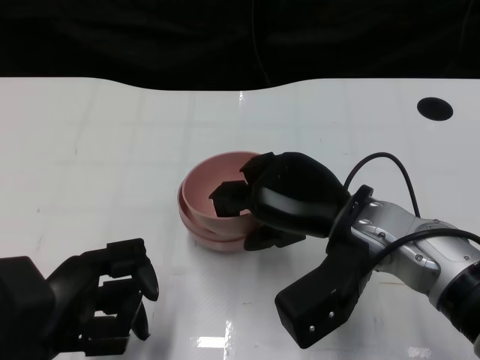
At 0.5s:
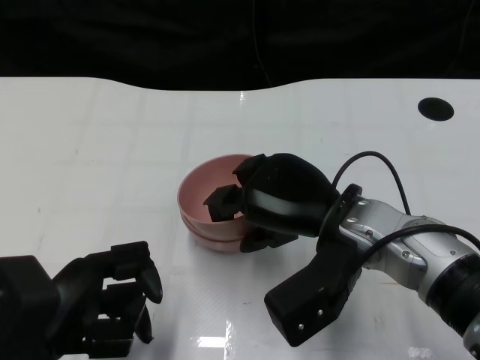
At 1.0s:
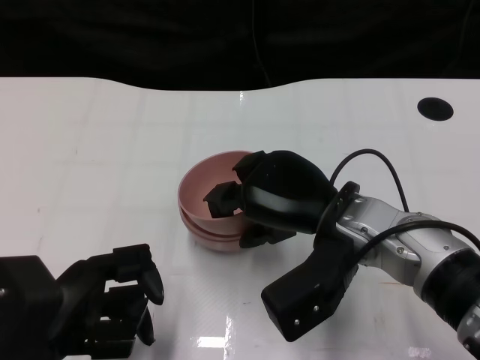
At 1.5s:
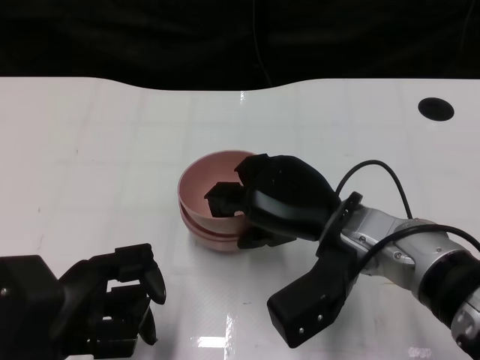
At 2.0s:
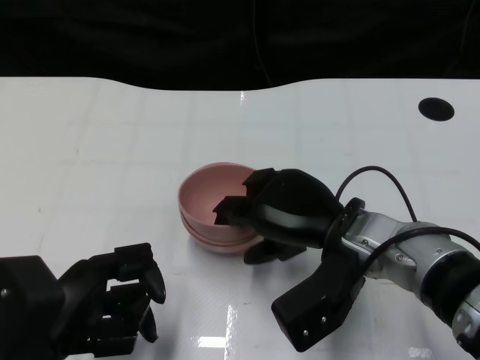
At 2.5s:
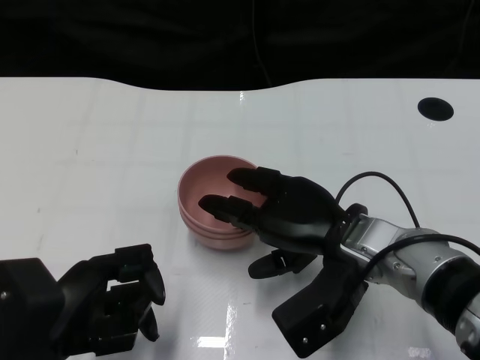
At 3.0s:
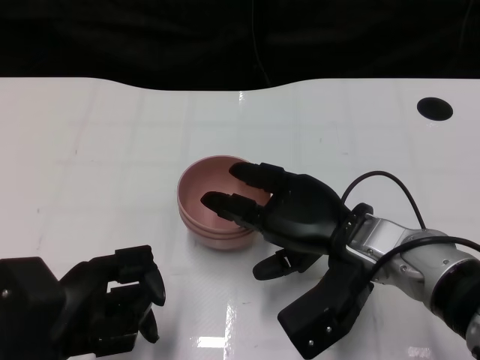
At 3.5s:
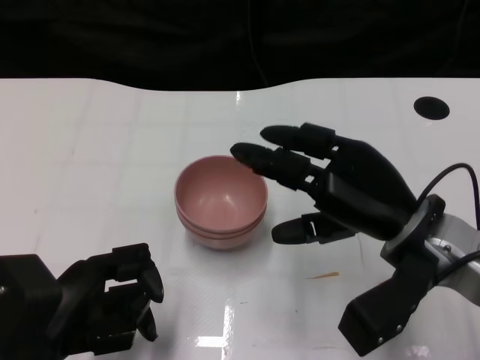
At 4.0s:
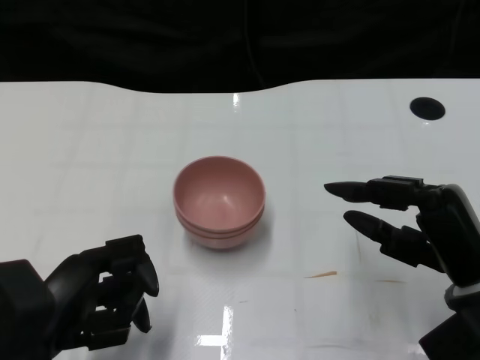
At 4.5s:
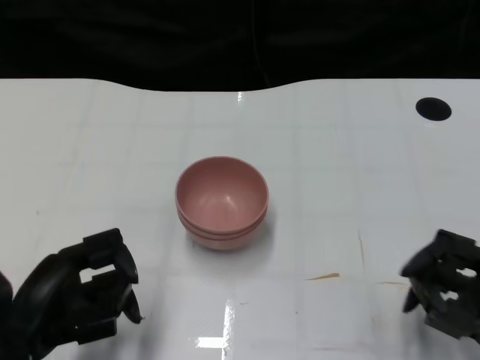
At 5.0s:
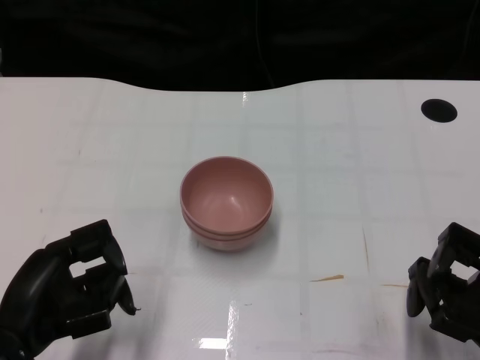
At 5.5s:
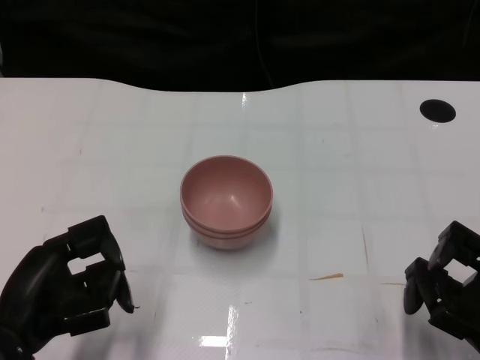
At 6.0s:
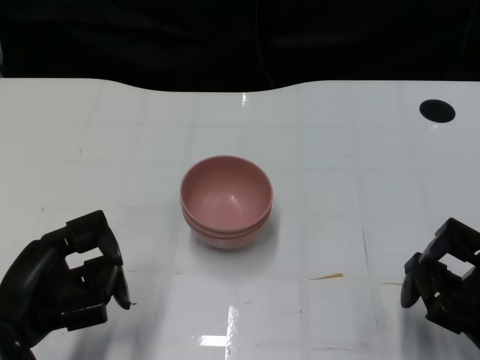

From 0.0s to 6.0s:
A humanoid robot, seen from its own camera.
Task of the whole recording: Pick up the bowl on one side of the table and place it on top of the middle bowl, then pick up the bowl on the other side of the table and place it on top of the middle bowls.
Step, from 0.0s to 2.5s: Place the bowl on the right onto the bowl in the middle with right gripper.
From 0.0s to 2.0s: The hands move only a little.
From 2.0s to 4.0s: The right hand shifts about 15 cm to the right and backward.
From 4.0s to 6.0s: The right hand moves roughly 10 cm.

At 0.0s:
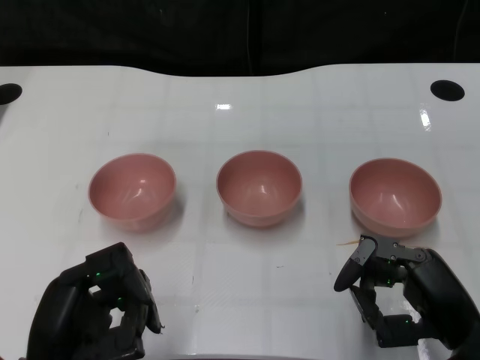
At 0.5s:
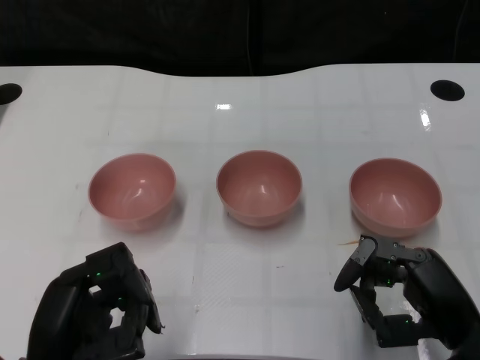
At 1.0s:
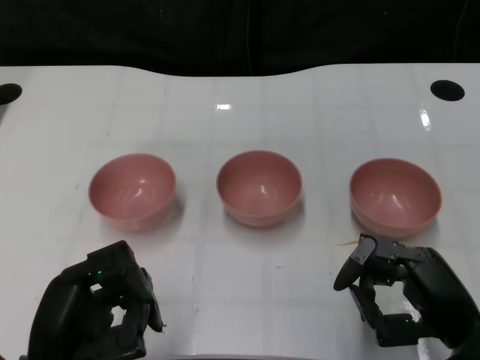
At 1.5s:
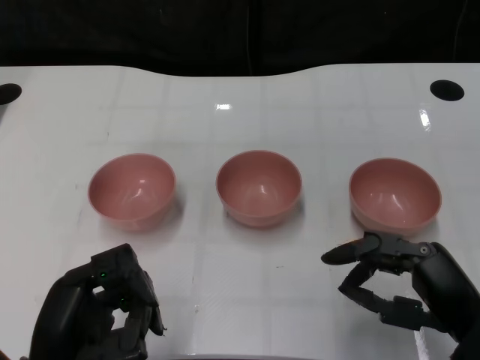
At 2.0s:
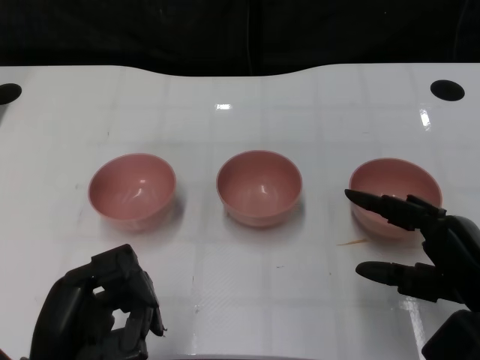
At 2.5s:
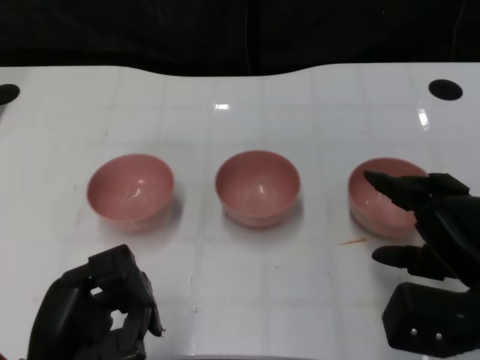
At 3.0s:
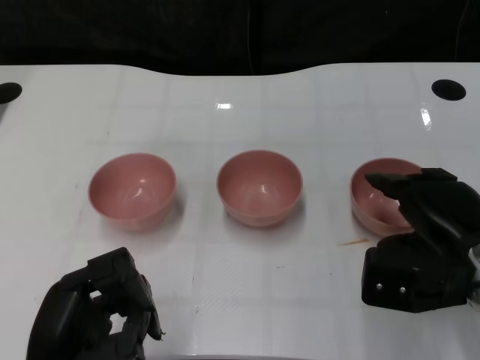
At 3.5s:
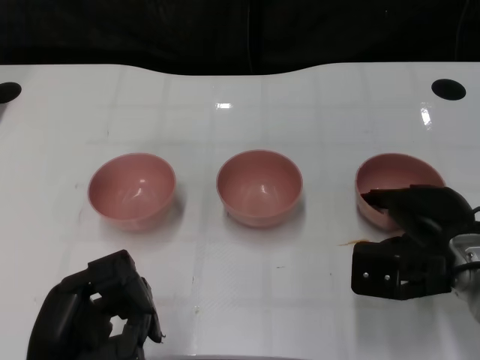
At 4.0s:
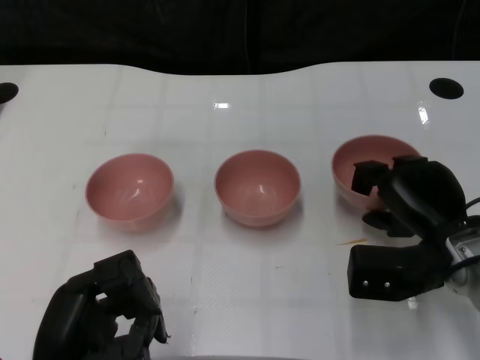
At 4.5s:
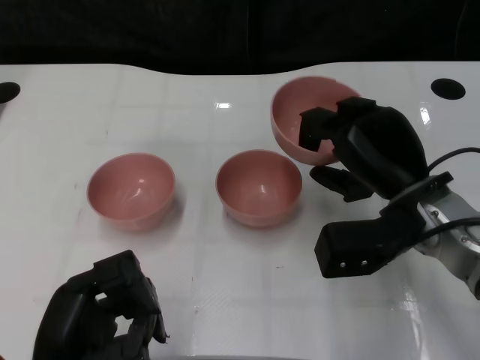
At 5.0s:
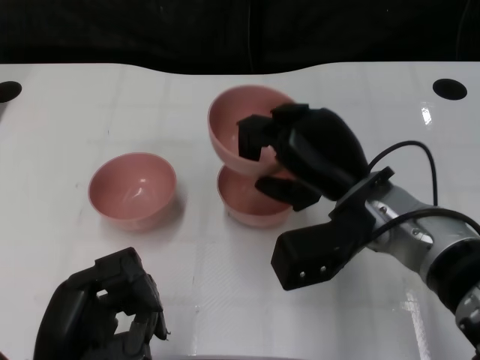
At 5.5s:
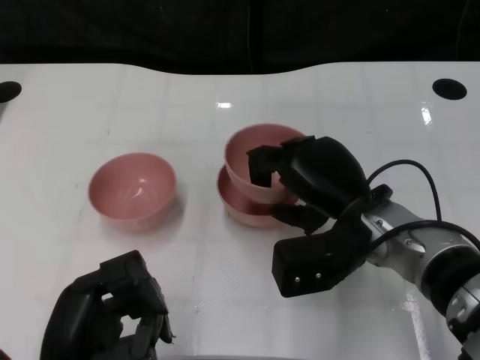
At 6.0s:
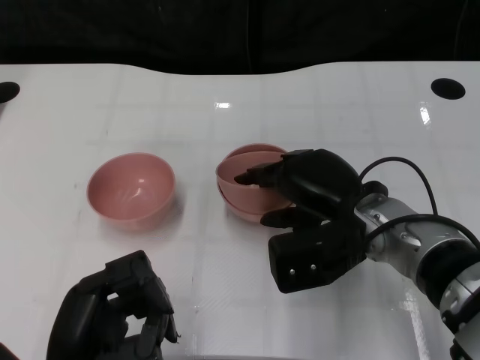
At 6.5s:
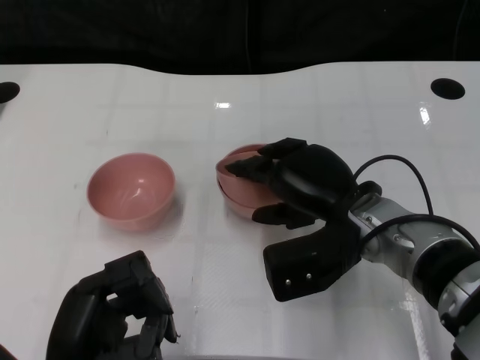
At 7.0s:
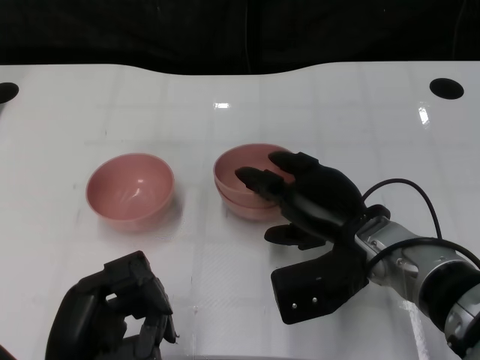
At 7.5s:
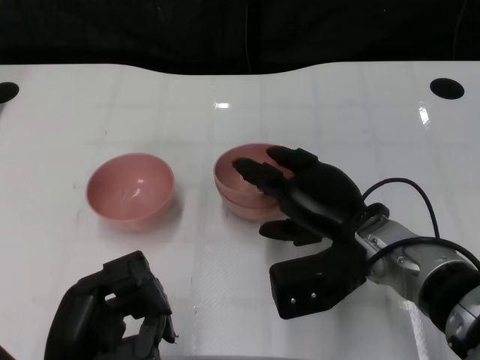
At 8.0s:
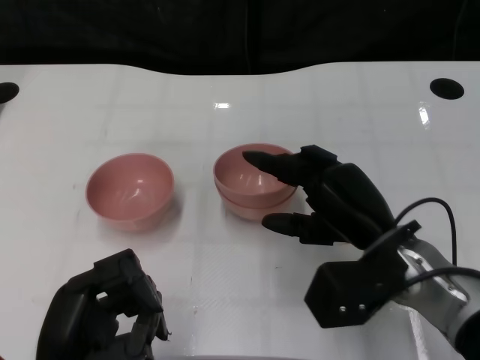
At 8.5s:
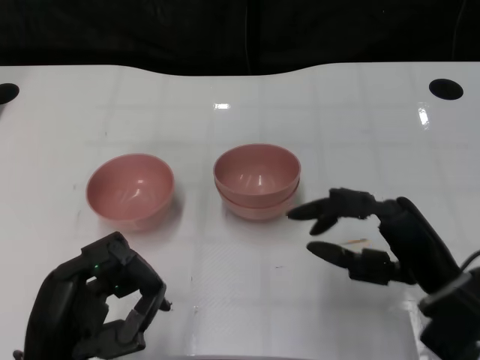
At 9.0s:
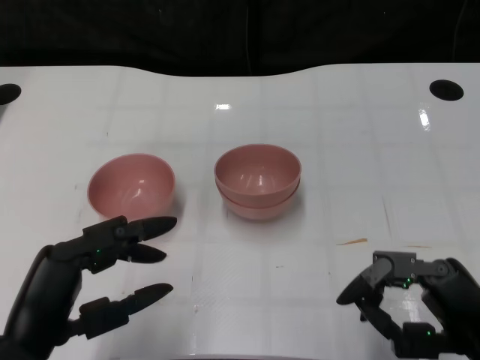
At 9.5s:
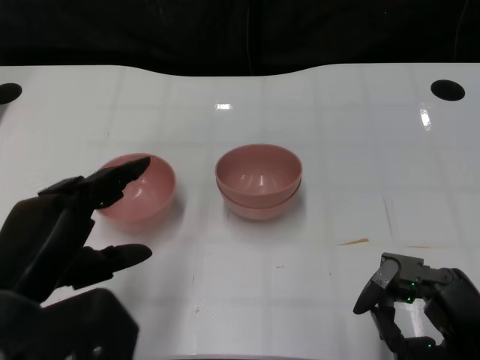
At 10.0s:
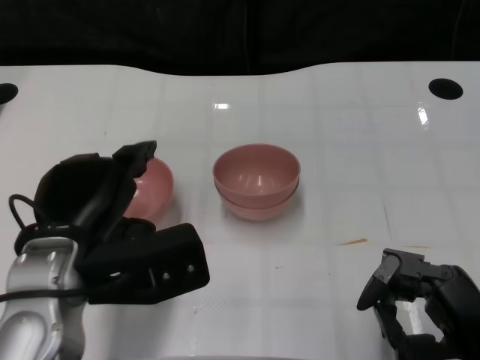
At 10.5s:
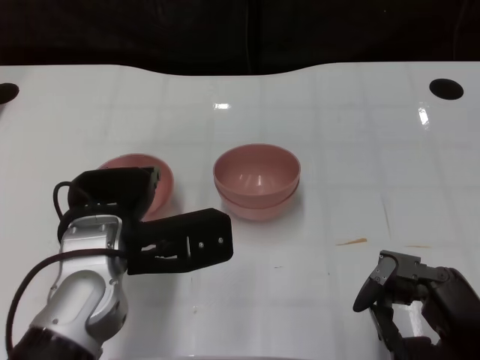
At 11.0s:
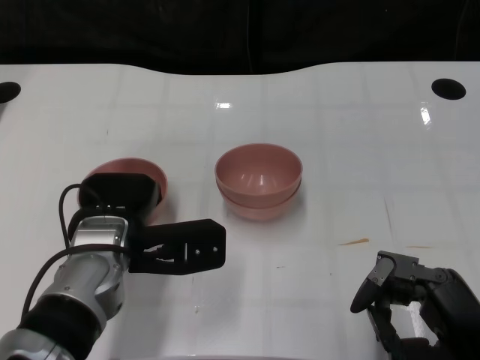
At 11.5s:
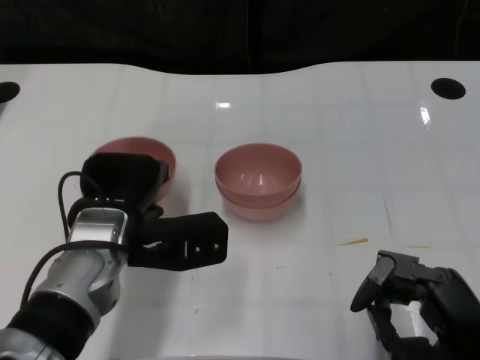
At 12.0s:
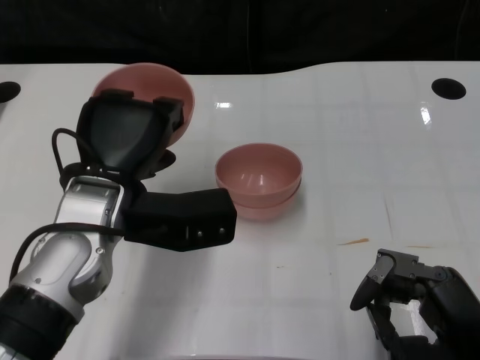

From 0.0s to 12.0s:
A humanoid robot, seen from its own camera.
Task of the whole recording: Pick up the bowl on one side of the table and place it on top of the middle bowl, then pick up the bowl on the other side of the table and place it on top of the middle bowls.
Step, from 1.5s to 3.5s: Grasp the bowl on the right with the right gripper.
Step, from 4.5s to 8.0s: Place the bowl on the right onto the bowl in the middle with right gripper.
Step, from 8.5s to 11.0s: Grasp the bowl on the left with the left gripper.
From 2.0s to 4.0s: The right hand is displaced forward by some 10 cm.
From 4.0s to 6.0s: The right hand heads to the left, covering about 10 cm.
From 8.0s to 10.0s: The left hand shifts about 10 cm forward and upward. The right hand moves backward and to the right, about 15 cm.
From 10.0s to 12.0s: The left hand shifts approximately 5 cm forward.

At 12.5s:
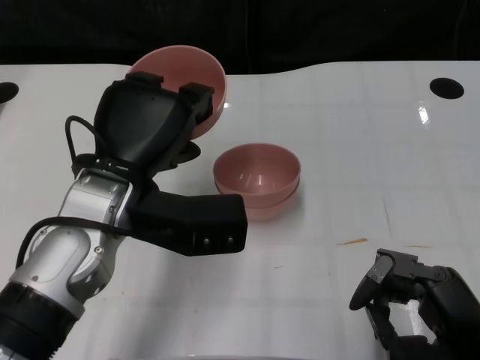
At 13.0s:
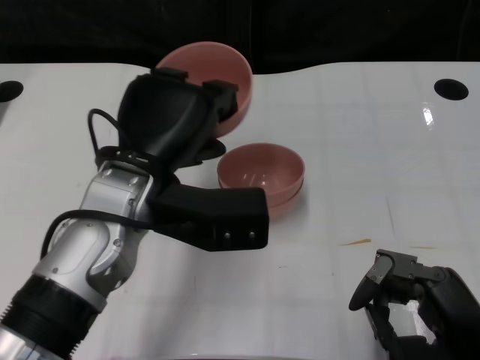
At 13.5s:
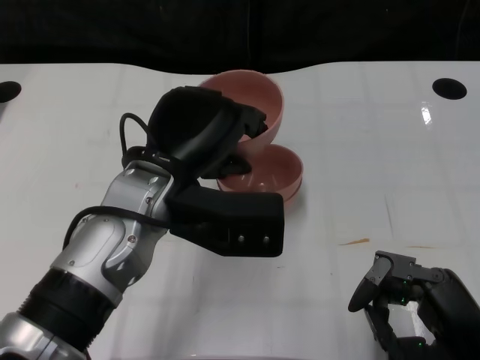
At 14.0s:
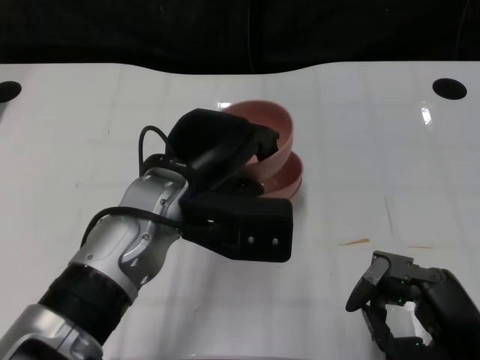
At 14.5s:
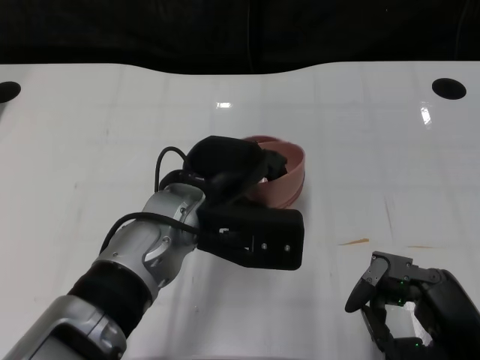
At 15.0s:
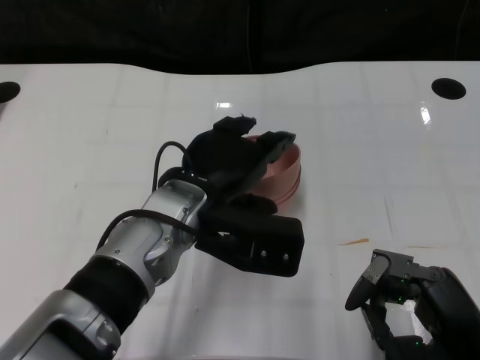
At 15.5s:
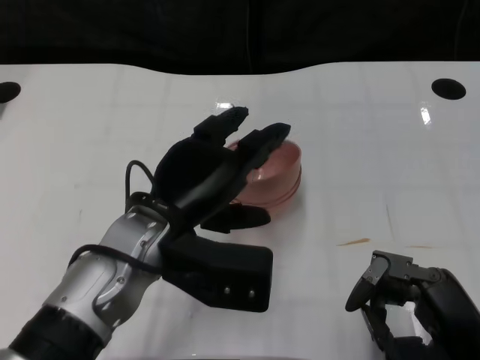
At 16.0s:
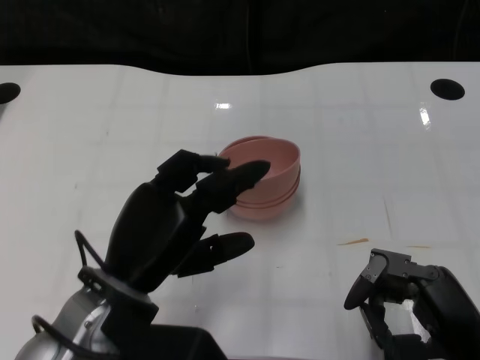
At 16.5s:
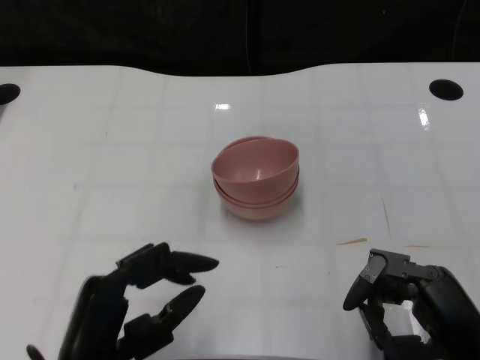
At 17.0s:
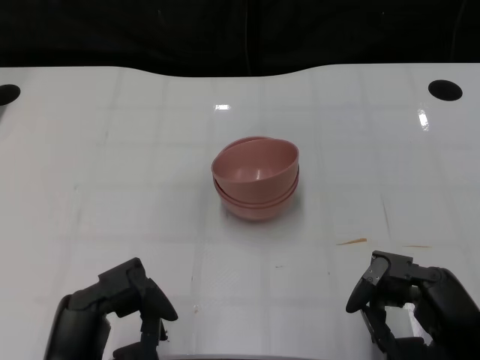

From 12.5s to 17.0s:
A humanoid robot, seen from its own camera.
Task of the whole recording: Pick up the bowl on one side of the table and place it on top of the middle bowl, then pick up the bowl on the other side of the table and place it on top of the middle bowls.
Step, from 12.5s to 15.5s: Place the bowl on the left onto the bowl in the middle with left gripper.
From 12.5s to 14.5s: The left hand shifts some 5 cm to the right.
From 14.5s to 17.0s: The left hand heads backward and to the left, covering some 20 cm.

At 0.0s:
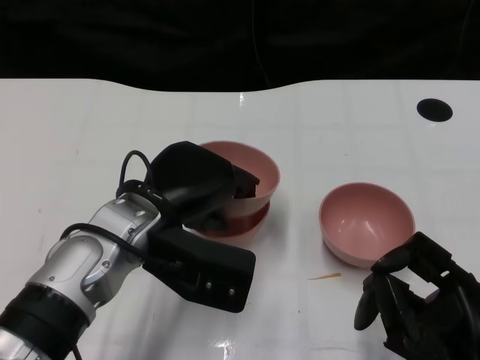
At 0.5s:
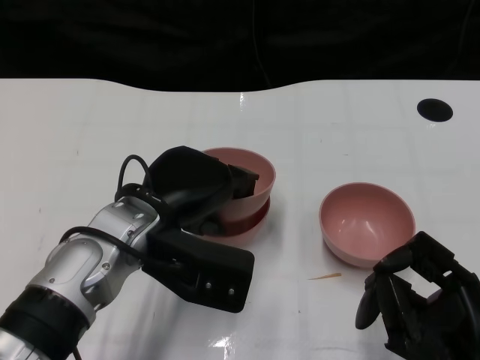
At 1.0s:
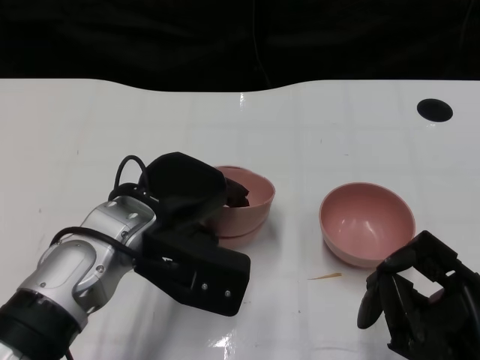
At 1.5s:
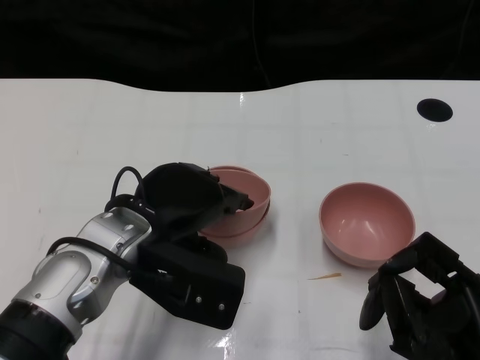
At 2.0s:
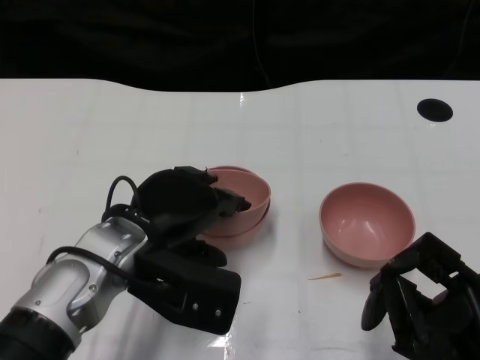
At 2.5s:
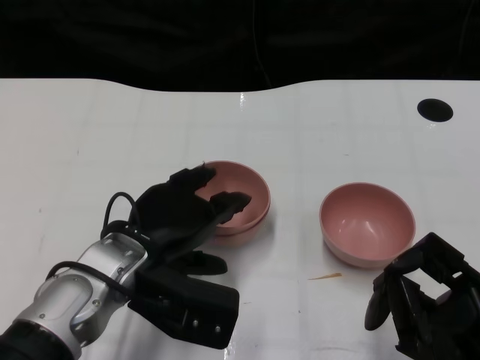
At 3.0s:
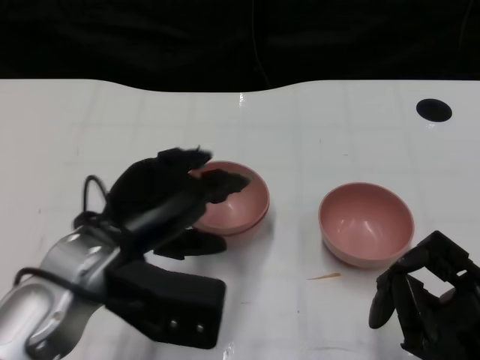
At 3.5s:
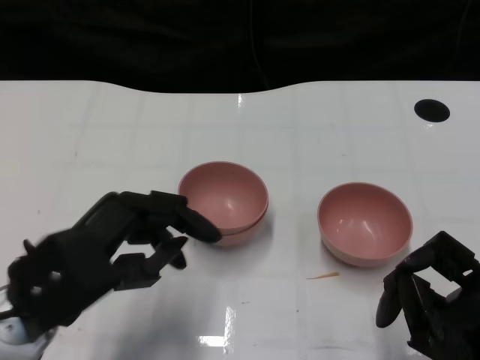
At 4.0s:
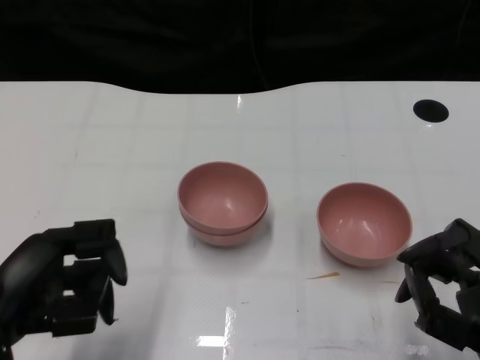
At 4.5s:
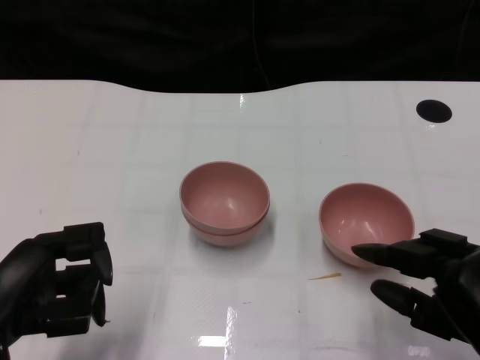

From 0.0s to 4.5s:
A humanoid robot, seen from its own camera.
Task of the whole recording: Pick up the bowl on one side of the table and place it on top of the middle bowl, then pick up the bowl on the other side of the table and place it on top of the middle bowls.
Step, from 0.0s to 2.5s: Place the bowl on the left onto the bowl in the middle with left gripper.
From 0.0s to 2.0s: The hands make only small movements.
From 2.0s to 4.5s: The left hand moves to the left and backward, some 15 cm.
